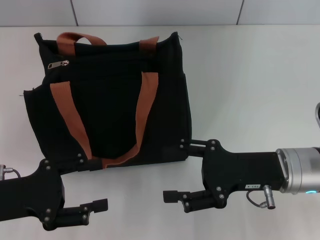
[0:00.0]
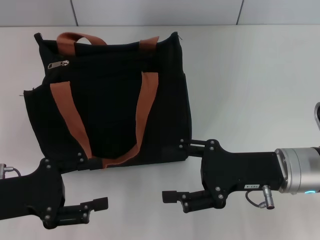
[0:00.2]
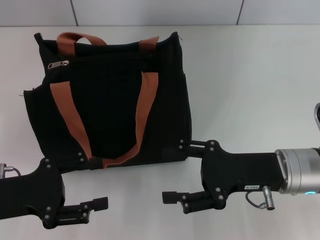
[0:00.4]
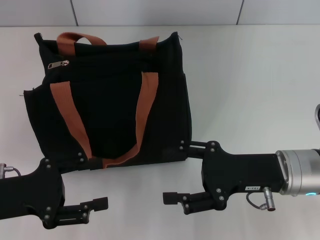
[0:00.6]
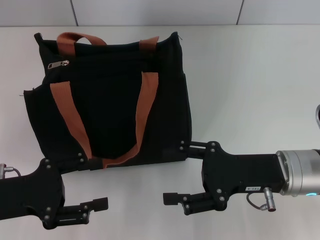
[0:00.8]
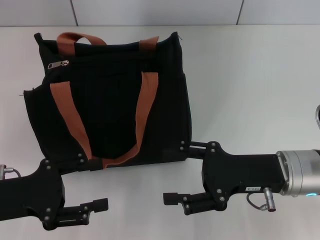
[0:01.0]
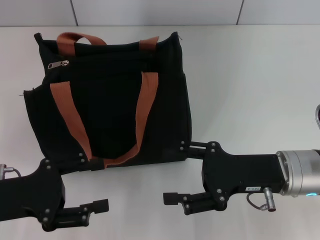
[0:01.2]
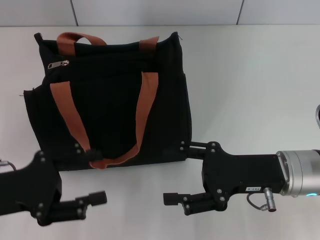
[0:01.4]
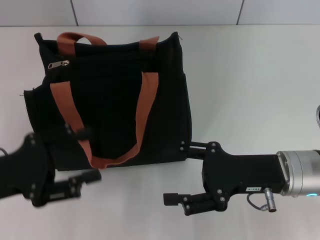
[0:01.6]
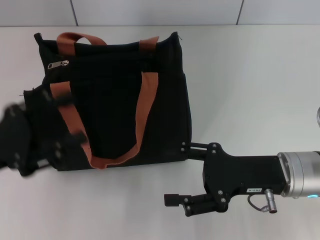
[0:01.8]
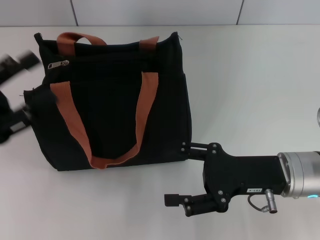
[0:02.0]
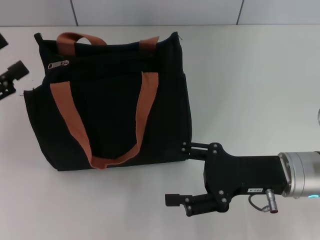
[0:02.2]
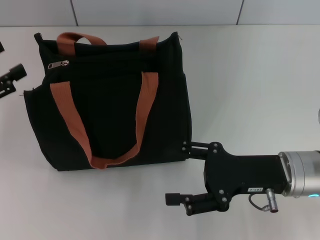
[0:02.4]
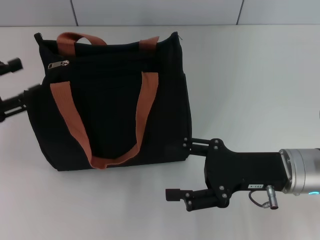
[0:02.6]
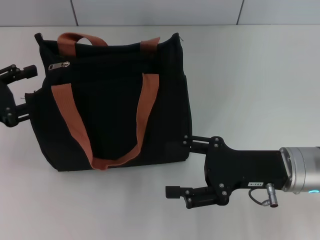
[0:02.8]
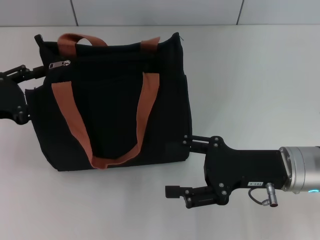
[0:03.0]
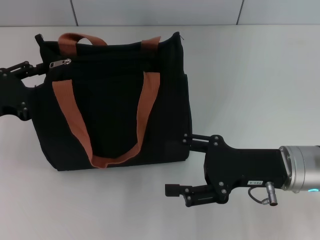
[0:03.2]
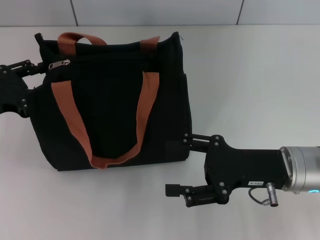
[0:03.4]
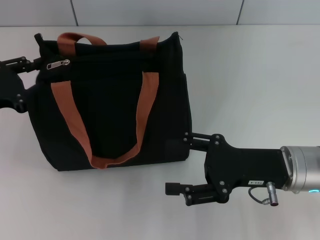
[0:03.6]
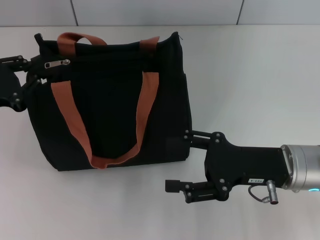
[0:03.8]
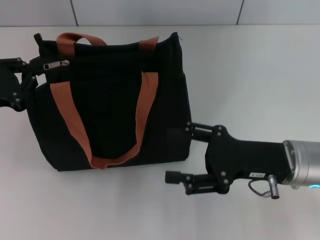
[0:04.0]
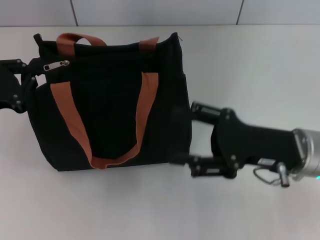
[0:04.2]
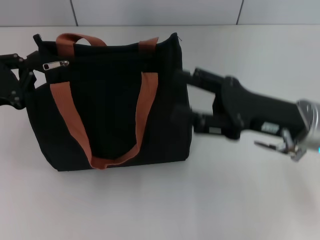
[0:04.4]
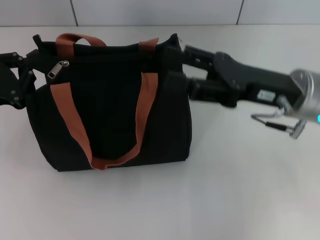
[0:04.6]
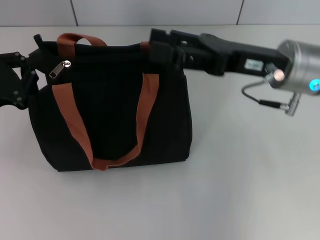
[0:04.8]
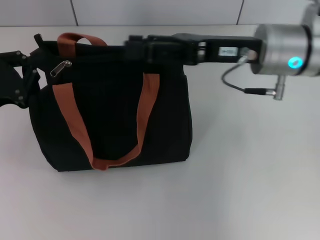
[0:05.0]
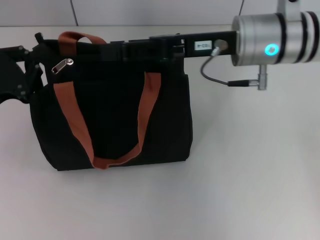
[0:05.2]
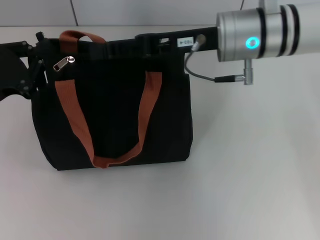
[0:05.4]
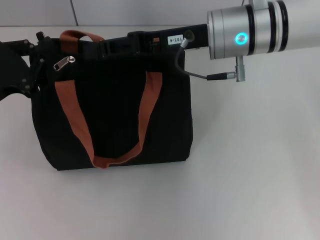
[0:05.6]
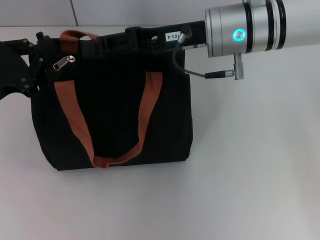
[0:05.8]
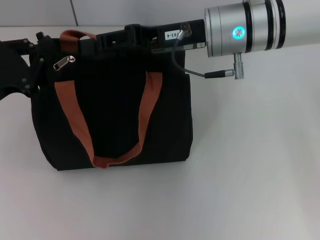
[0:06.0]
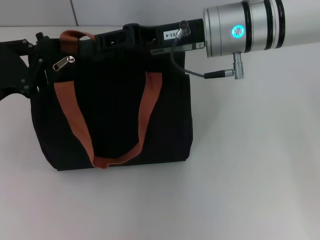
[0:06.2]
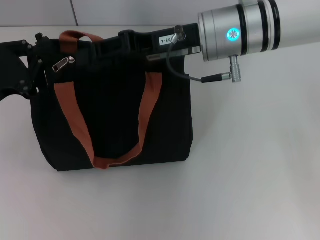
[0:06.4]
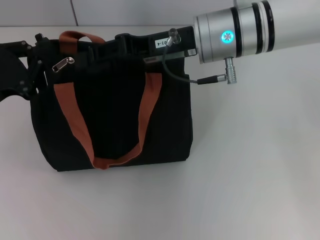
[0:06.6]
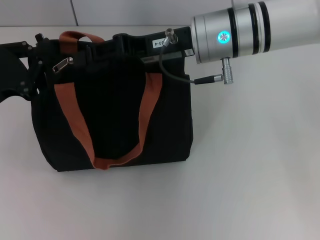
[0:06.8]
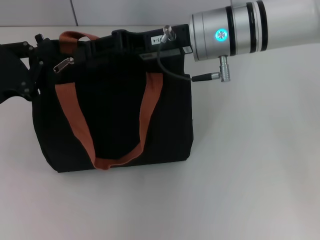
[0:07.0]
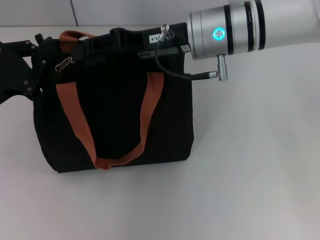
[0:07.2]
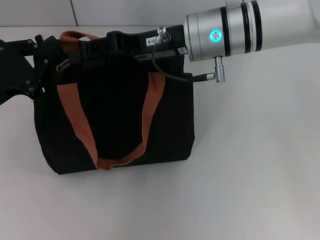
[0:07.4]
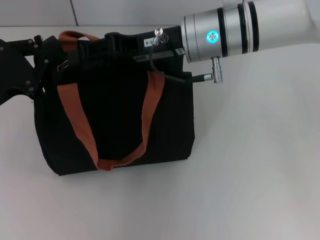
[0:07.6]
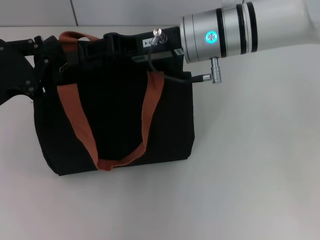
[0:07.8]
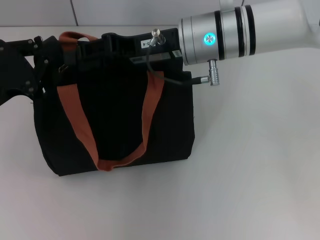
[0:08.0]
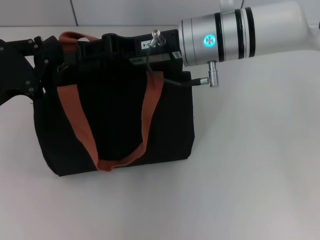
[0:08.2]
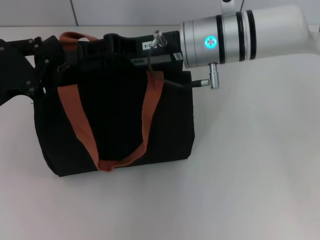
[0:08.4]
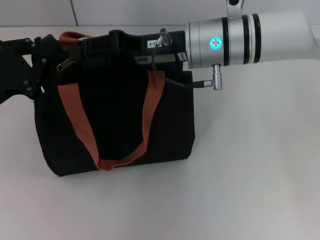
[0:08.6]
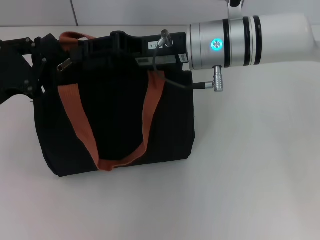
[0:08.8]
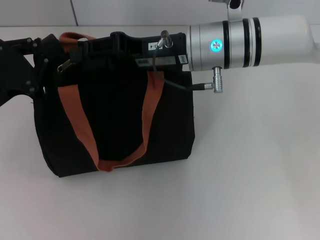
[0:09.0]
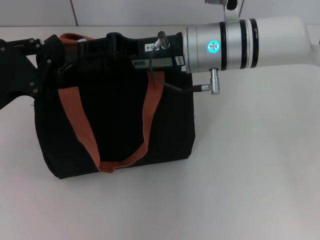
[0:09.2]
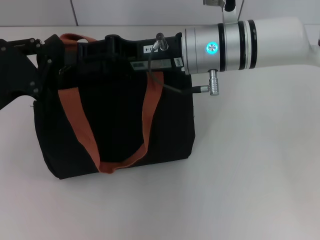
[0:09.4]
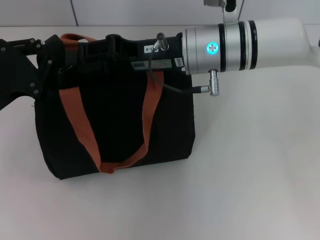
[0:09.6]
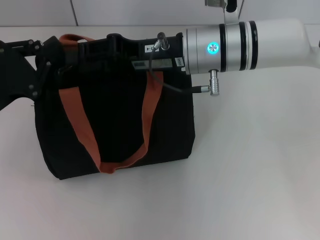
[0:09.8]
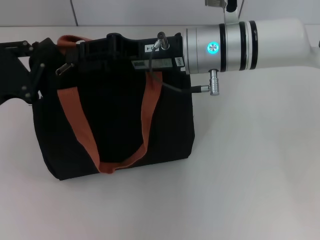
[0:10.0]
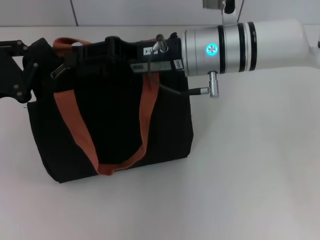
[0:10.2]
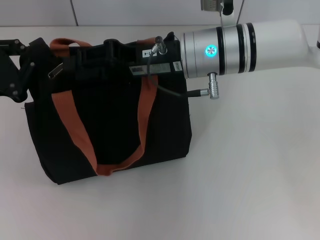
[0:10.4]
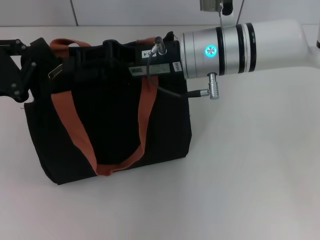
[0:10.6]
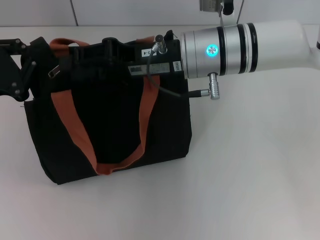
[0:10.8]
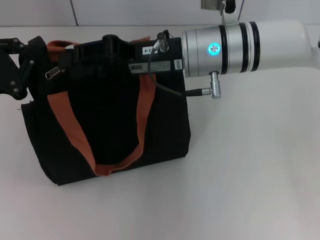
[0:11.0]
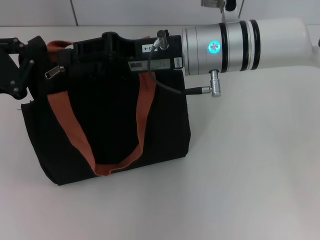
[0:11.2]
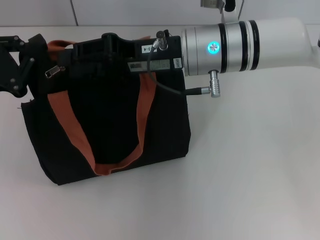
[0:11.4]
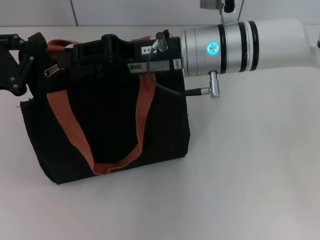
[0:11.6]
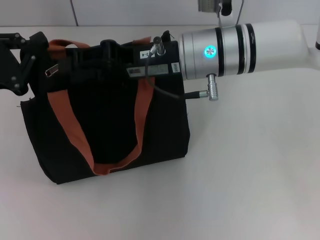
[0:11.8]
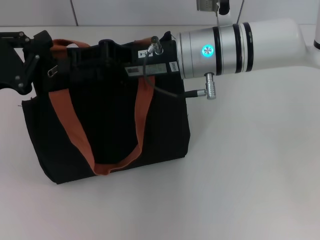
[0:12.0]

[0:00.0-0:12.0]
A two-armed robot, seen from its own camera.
0:00.0 to 0:01.6: The grippers move only a little.
0:01.6 to 0:03.0: The left gripper is displaced forward by roughly 10 cm.
0:03.0 to 0:04.4: The right gripper ends up roughly 5 cm from where it was; the left gripper closes its fingers.
0:04.4 to 0:06.0: The right gripper shifts some 15 cm forward, to the left and upward, and closes.
0:06.0 to 0:10.4: The grippers stay close to where they were, moving slightly.
0:10.4 to 0:12.0: Both grippers stay about where they are.

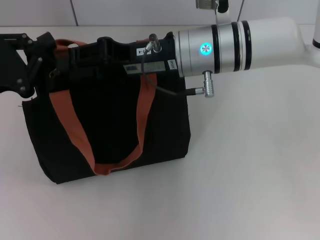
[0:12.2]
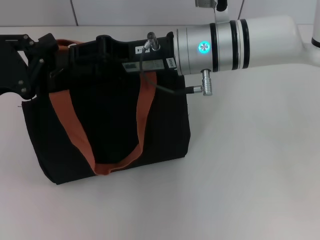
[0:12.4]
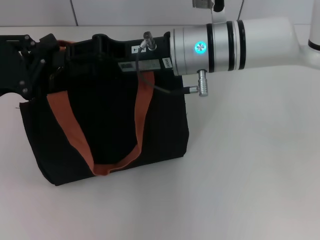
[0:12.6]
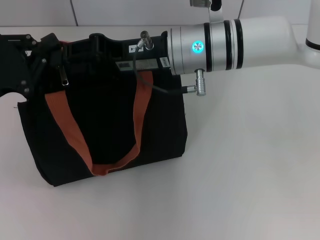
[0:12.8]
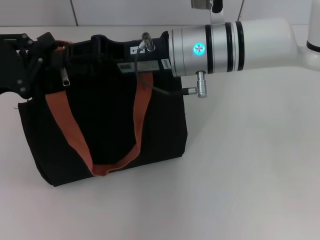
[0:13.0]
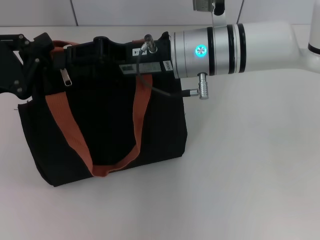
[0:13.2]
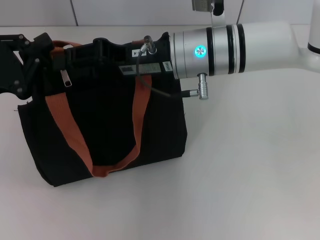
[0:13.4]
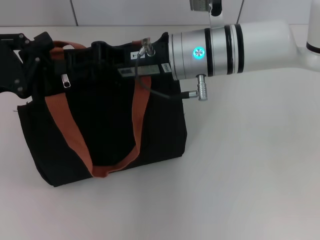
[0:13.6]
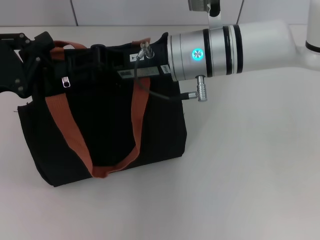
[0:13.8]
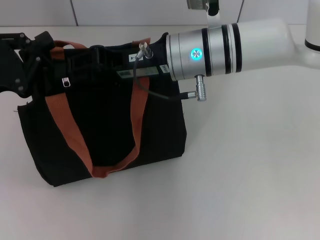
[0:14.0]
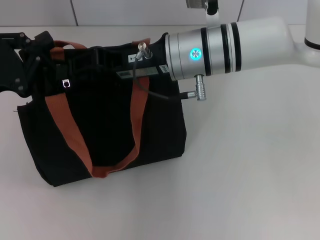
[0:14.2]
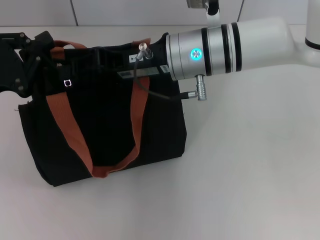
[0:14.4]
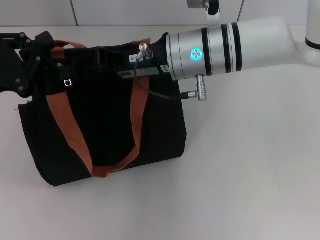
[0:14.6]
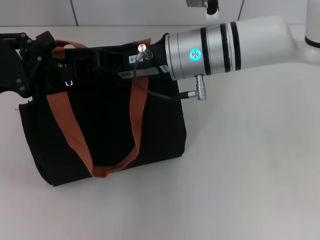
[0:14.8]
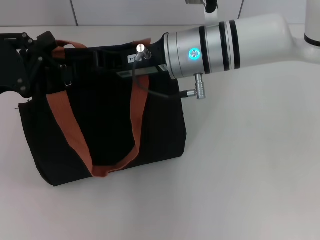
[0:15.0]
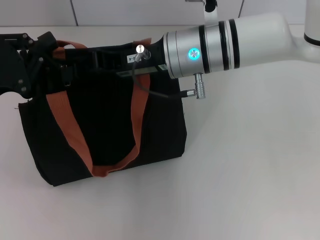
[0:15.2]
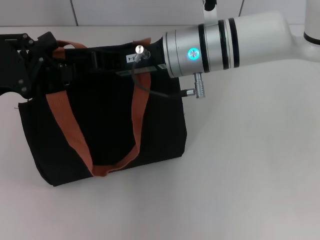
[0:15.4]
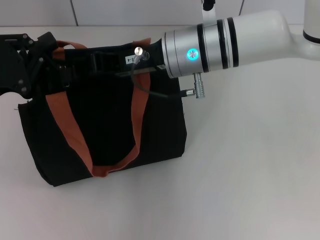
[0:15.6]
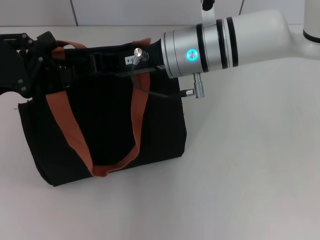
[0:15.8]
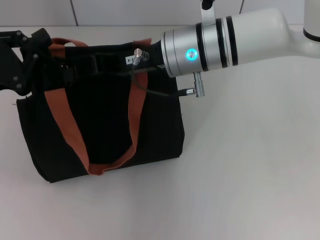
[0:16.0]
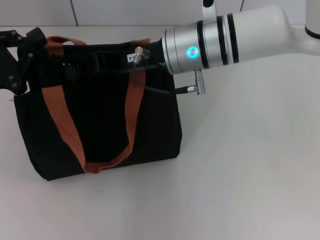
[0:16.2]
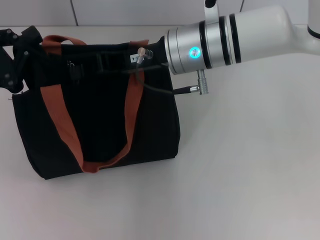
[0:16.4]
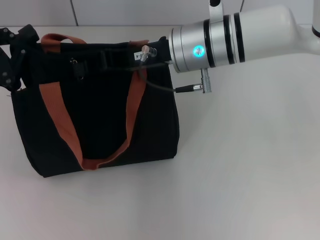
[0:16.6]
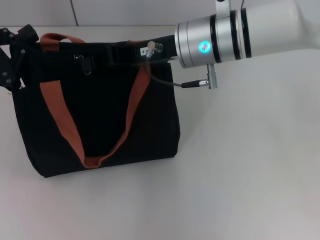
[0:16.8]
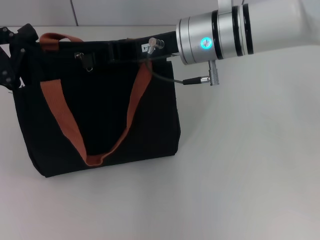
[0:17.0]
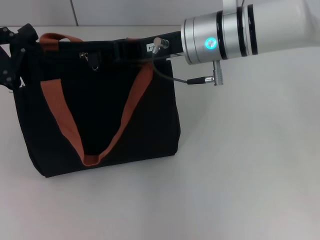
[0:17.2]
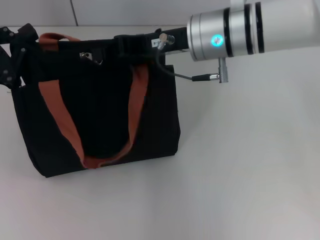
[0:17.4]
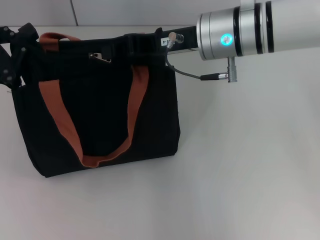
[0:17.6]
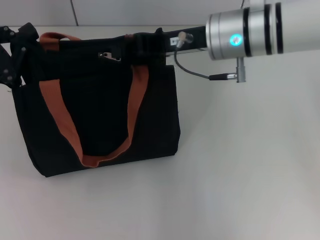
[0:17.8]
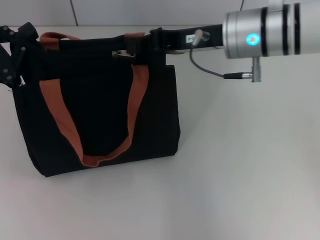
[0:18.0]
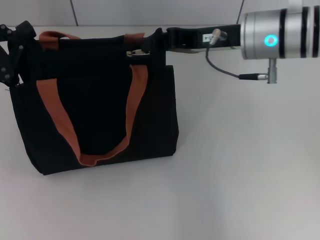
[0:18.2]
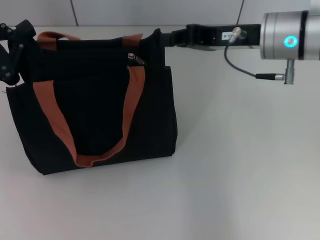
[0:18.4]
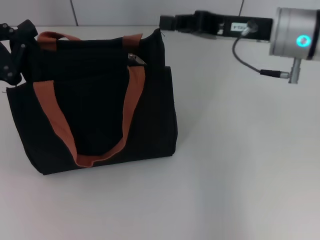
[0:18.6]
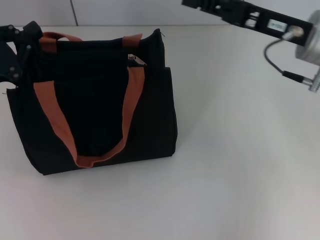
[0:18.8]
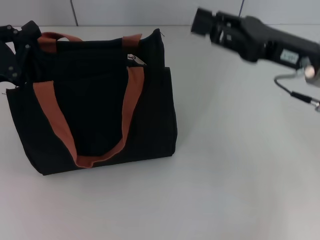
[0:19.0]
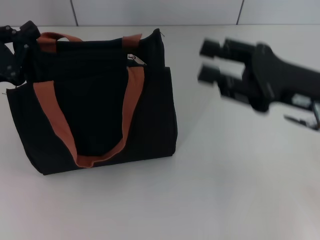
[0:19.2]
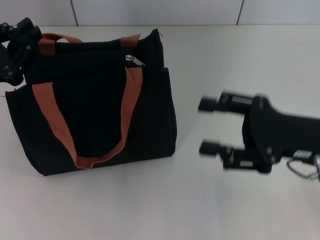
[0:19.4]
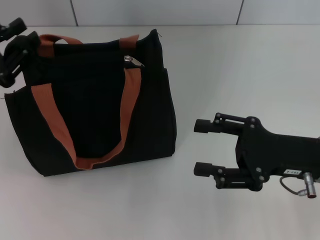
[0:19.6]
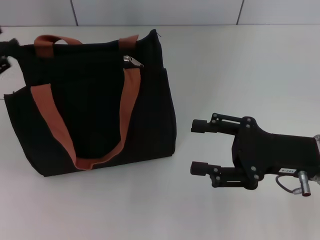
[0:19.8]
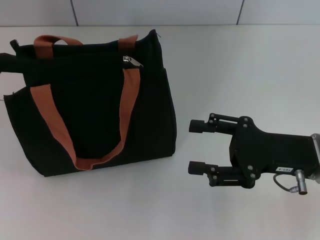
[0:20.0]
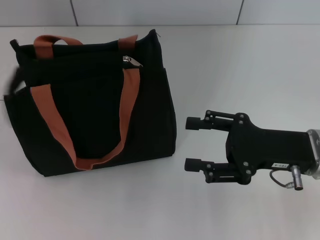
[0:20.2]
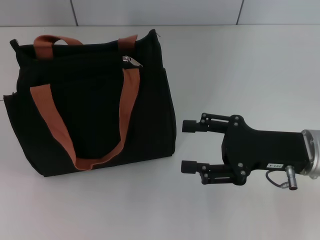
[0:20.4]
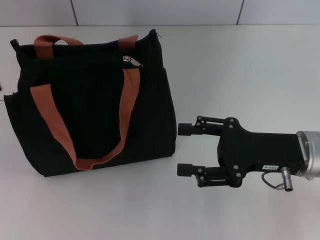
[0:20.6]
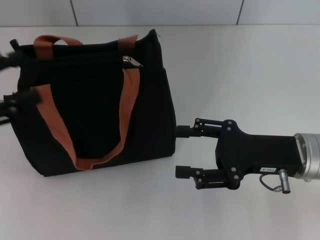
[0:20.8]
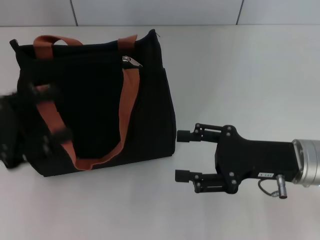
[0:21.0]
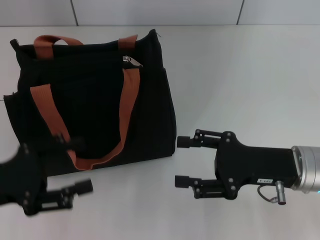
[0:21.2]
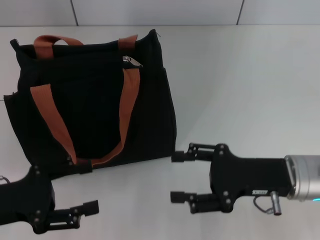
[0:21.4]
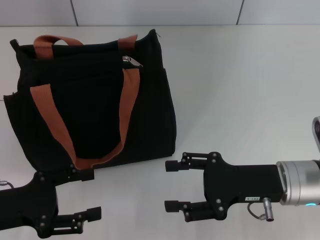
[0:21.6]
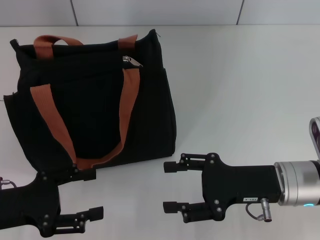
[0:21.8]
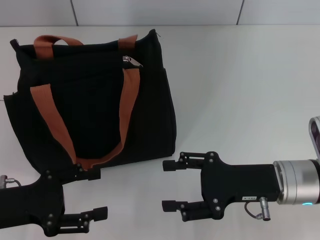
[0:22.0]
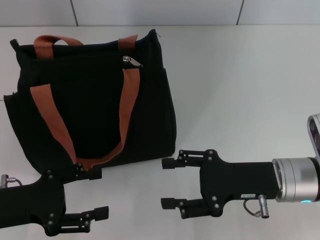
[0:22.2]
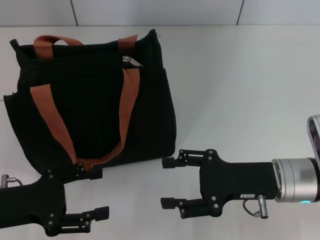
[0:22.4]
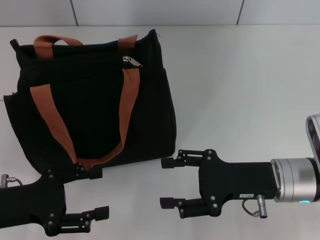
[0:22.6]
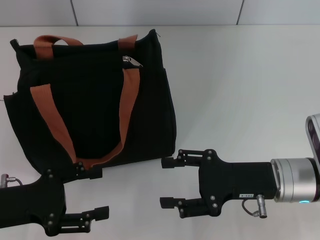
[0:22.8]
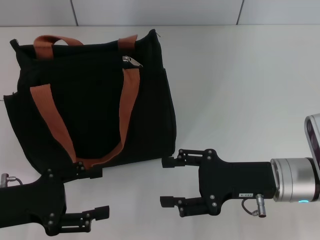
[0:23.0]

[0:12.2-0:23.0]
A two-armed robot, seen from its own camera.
Step, 0:12.2 to 0:18.2: Pull up the zipper with your right hand.
Step, 0:18.4 to 0:20.0: Grab the zipper with your left hand.
0:12.2 to 0:13.8: Both grippers stay put.
0:13.8 to 0:16.8: The grippers stay close to where they were, moving slightly.
0:16.8 to 0:18.4: The right gripper shifts about 10 cm to the right.
0:18.4 to 0:20.0: The right gripper heads backward, downward and to the right, covering about 15 cm, and opens up; the left gripper travels to the left by roughly 5 cm, and opens.
0:20.0 to 0:21.4: The left gripper heads to the right, downward and backward, covering roughly 15 cm.
0:21.4 to 0:23.0: There are only small adjustments of the grippers.
